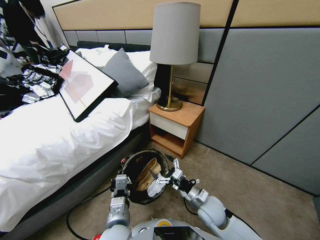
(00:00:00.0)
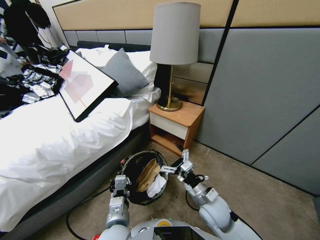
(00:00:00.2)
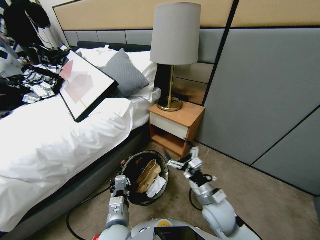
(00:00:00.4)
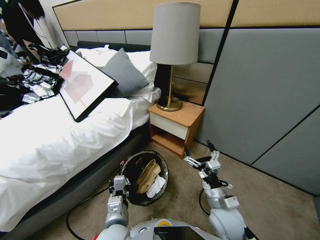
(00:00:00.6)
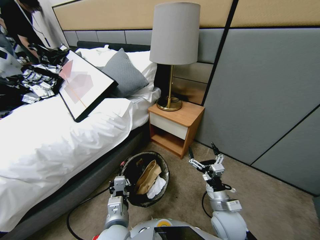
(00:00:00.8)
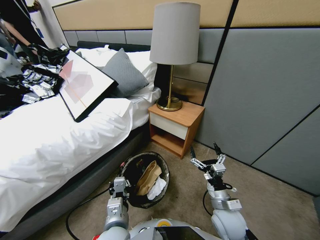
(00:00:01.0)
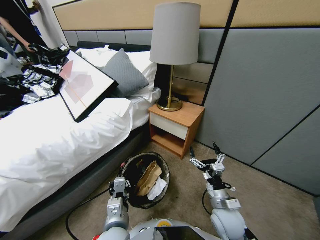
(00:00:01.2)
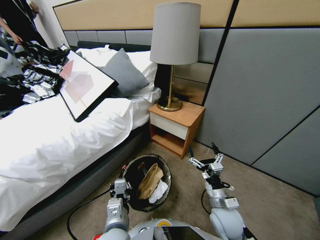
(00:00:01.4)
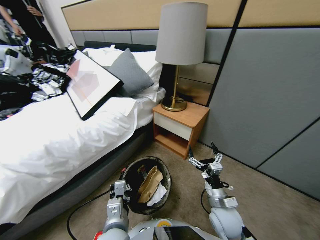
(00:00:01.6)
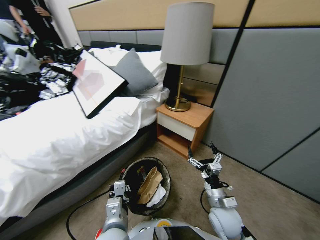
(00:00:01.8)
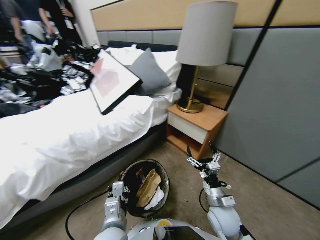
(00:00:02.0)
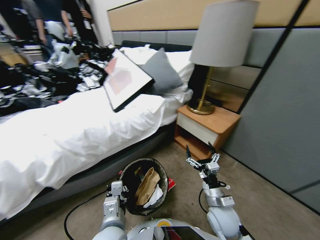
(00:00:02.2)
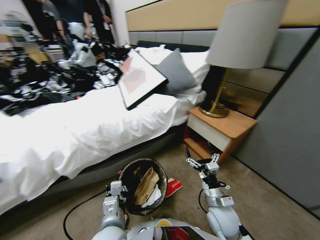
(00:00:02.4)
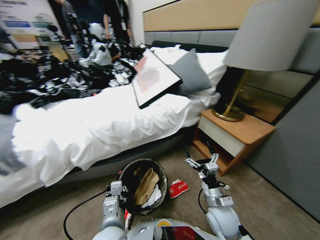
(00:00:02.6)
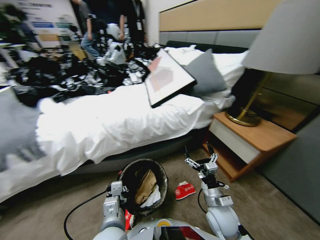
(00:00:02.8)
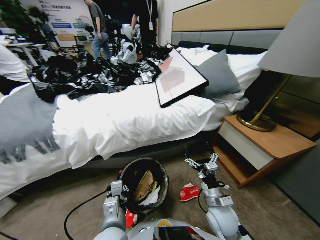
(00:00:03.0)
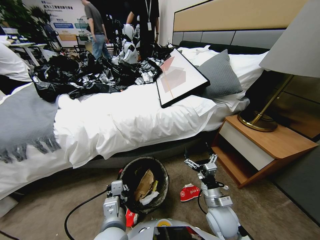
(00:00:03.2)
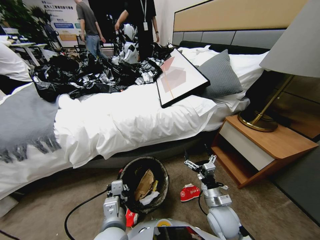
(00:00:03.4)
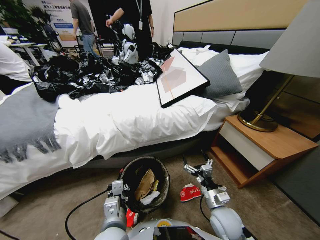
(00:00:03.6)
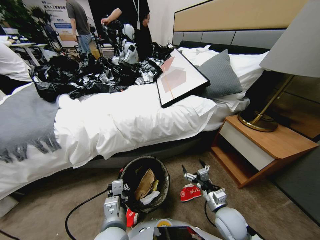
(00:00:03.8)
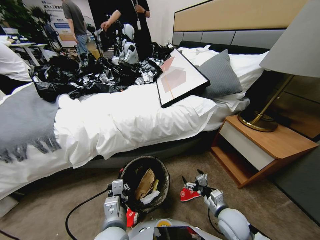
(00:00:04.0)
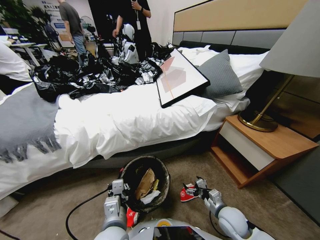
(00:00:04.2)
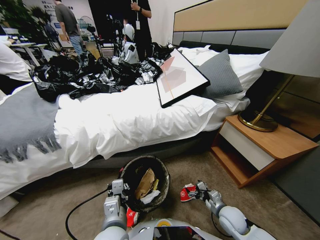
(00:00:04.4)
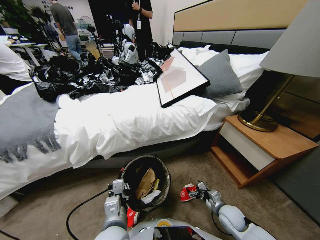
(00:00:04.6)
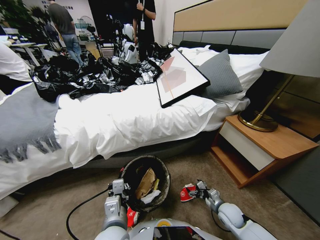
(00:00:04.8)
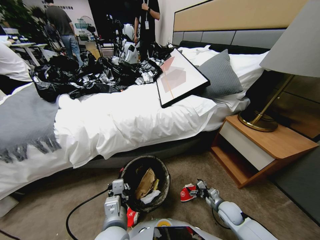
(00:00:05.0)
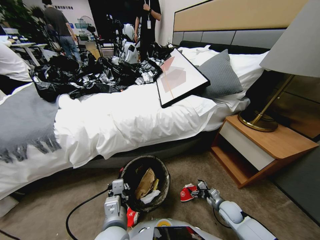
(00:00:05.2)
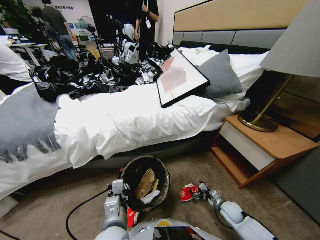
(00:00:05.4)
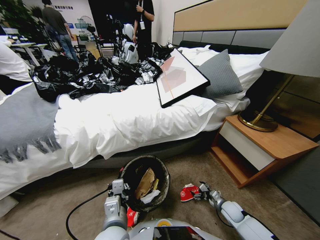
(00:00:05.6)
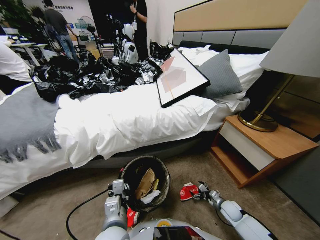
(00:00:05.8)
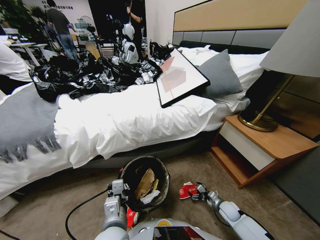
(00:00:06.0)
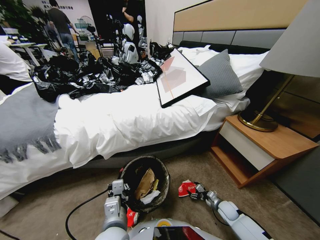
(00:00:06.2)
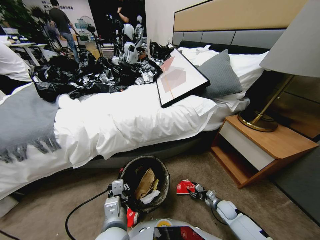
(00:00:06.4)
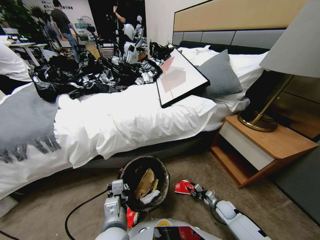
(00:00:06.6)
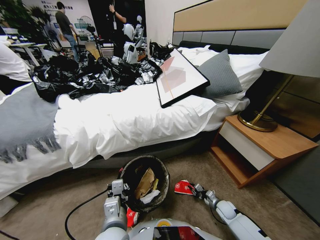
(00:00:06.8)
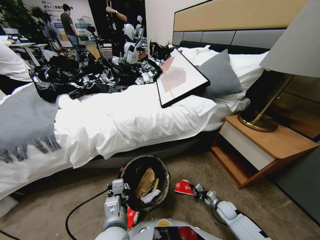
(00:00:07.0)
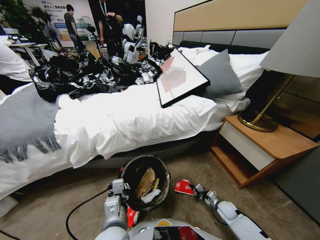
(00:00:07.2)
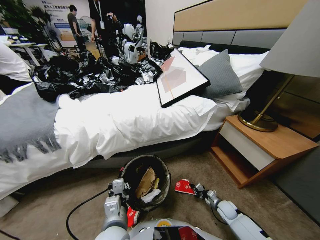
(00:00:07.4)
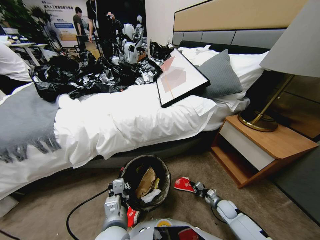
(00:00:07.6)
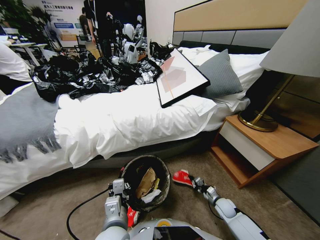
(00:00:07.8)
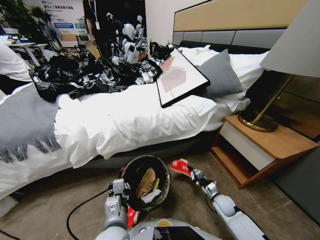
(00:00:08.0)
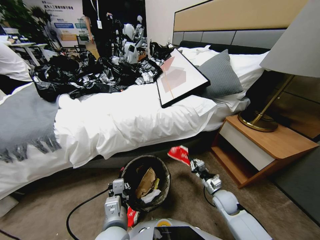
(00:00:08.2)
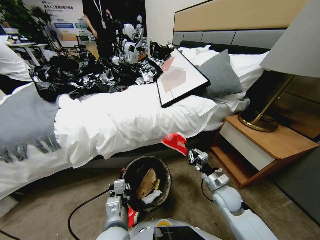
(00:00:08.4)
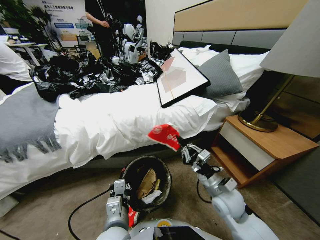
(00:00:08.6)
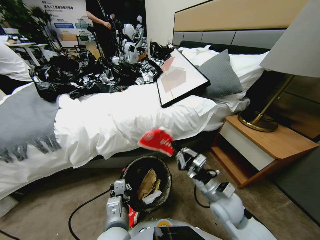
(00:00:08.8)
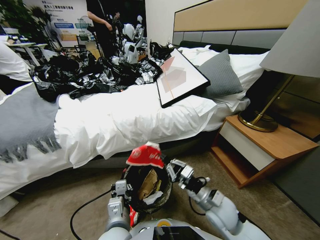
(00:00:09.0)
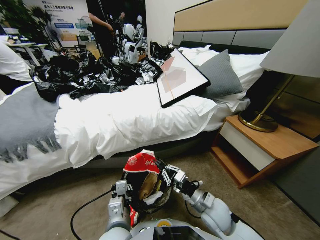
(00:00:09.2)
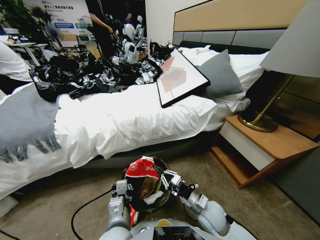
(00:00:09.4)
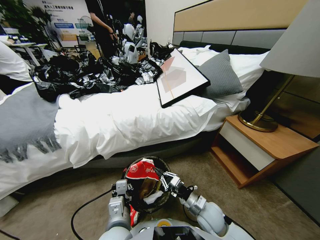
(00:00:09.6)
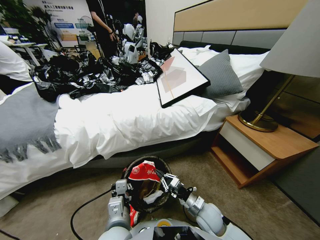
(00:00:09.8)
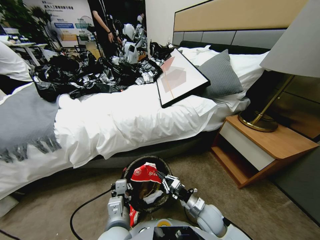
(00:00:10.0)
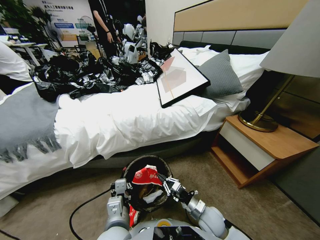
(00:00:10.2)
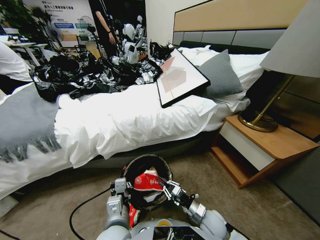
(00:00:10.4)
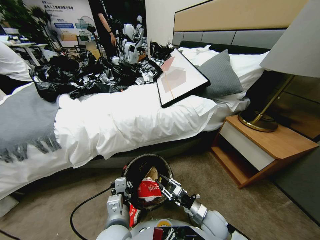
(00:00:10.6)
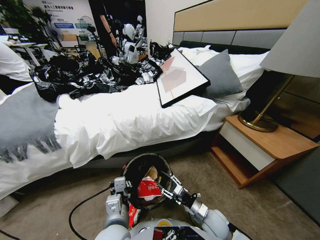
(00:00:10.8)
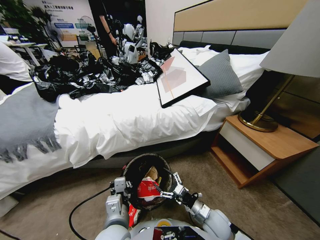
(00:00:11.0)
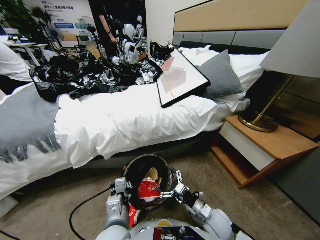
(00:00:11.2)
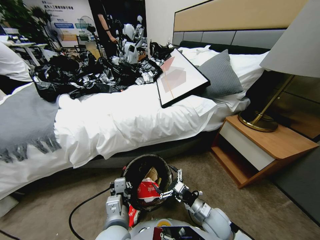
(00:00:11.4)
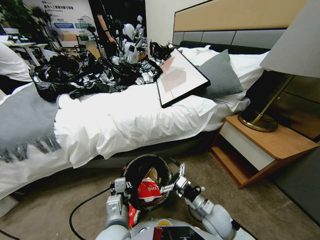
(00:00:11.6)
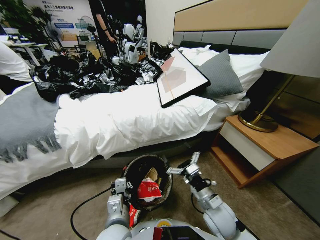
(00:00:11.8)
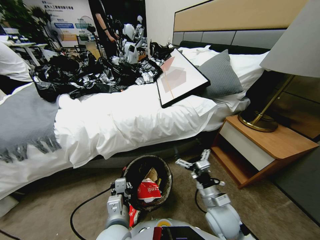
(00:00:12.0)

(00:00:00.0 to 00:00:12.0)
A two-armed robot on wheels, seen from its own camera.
Task of the whole recording: Pick up the trash bin, then pick up the garbage from the floor and place it into the trash bin.
00:00:03.0 - 00:00:04.4: The right gripper is displaced downward and to the right by about 15 cm.
00:00:04.4 - 00:00:06.0: The right gripper moves downward and to the right, approximately 10 cm.
00:00:06.0 - 00:00:07.6: The right gripper closes.
00:00:07.6 - 00:00:09.0: The right gripper travels upward and to the left by approximately 30 cm.
00:00:09.0 - 00:00:10.4: The right gripper travels downward by about 10 cm.
00:00:10.4 - 00:00:12.0: The right gripper moves upward, some 10 cm, and opens.

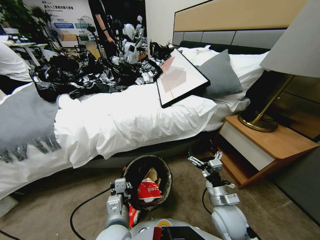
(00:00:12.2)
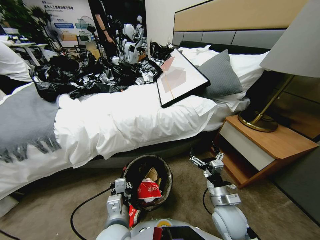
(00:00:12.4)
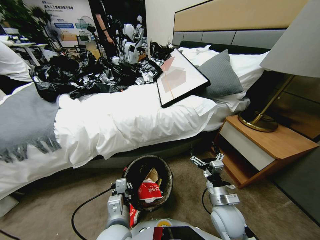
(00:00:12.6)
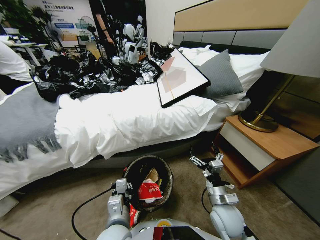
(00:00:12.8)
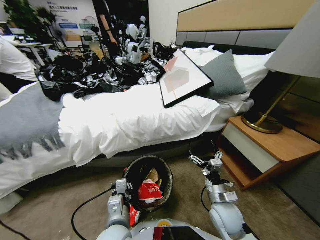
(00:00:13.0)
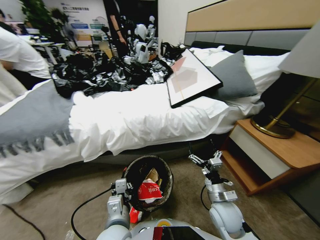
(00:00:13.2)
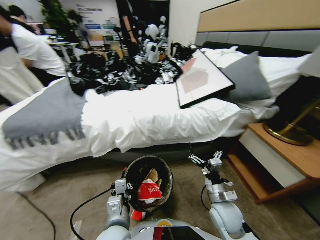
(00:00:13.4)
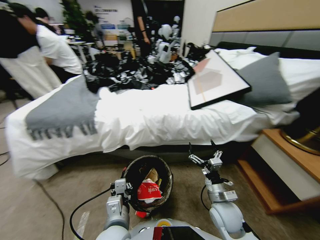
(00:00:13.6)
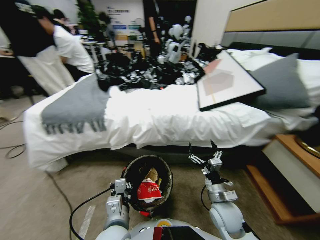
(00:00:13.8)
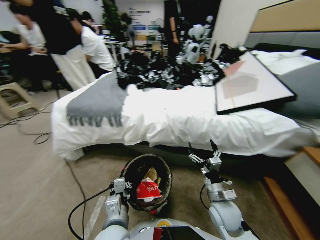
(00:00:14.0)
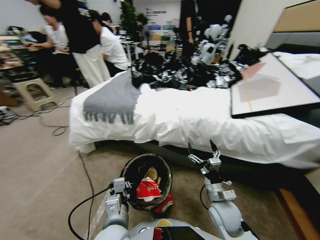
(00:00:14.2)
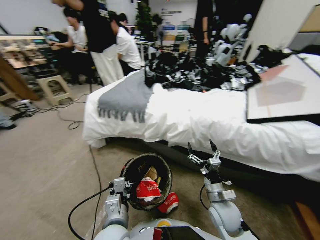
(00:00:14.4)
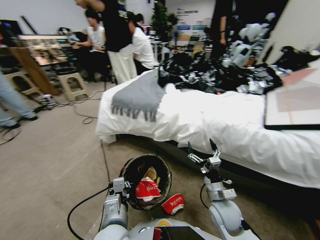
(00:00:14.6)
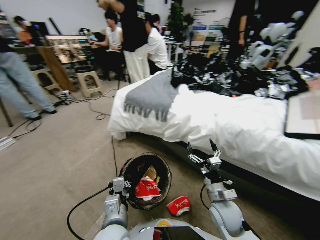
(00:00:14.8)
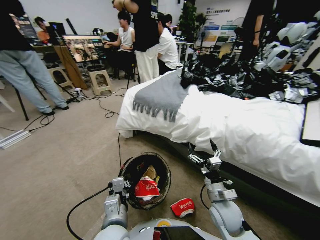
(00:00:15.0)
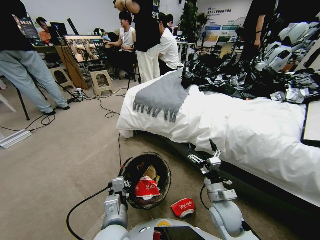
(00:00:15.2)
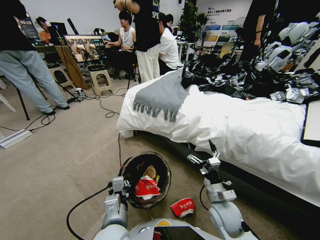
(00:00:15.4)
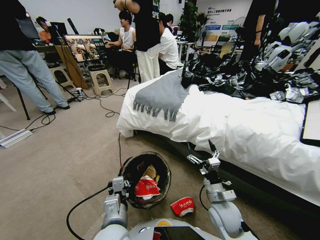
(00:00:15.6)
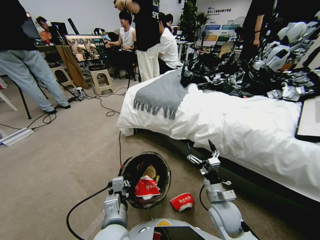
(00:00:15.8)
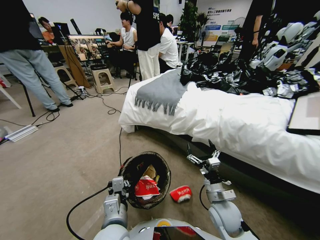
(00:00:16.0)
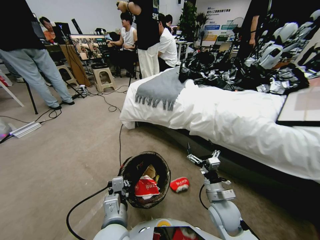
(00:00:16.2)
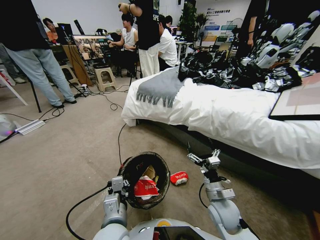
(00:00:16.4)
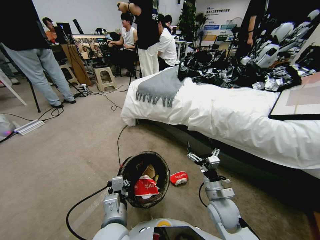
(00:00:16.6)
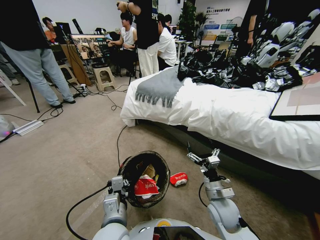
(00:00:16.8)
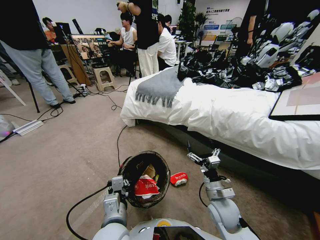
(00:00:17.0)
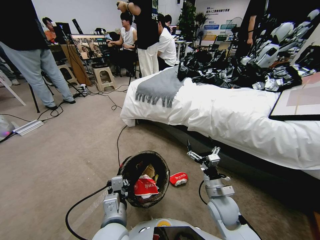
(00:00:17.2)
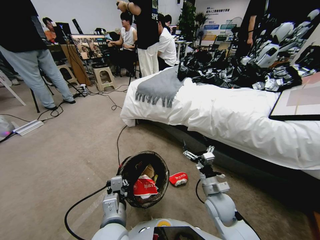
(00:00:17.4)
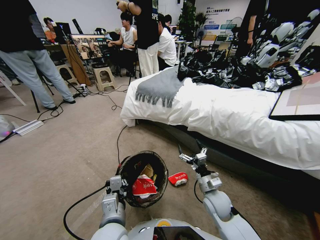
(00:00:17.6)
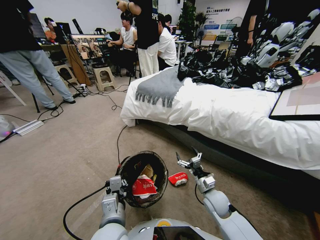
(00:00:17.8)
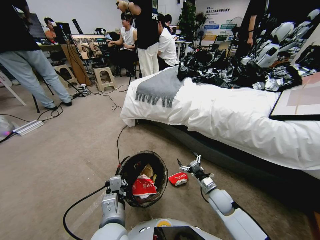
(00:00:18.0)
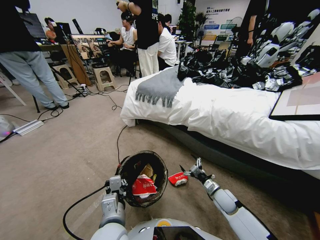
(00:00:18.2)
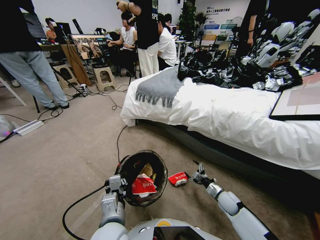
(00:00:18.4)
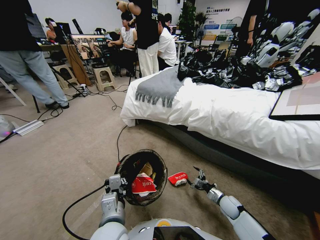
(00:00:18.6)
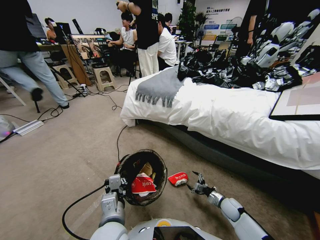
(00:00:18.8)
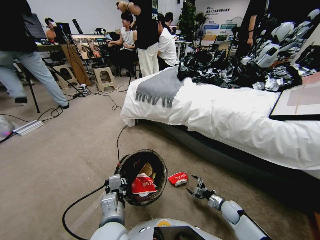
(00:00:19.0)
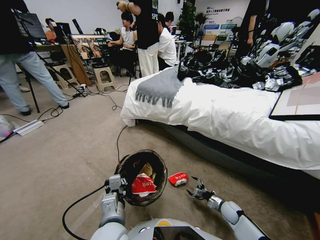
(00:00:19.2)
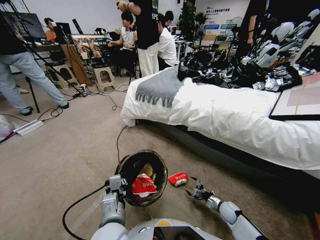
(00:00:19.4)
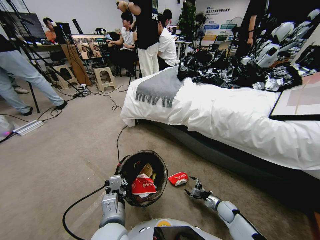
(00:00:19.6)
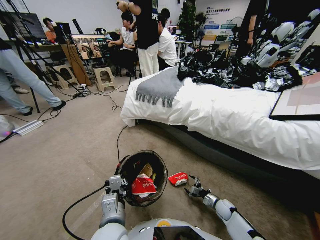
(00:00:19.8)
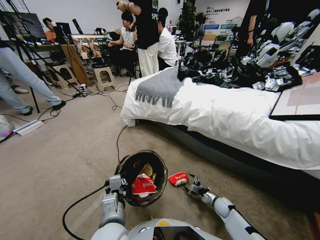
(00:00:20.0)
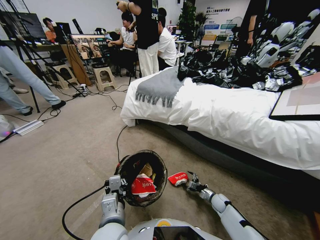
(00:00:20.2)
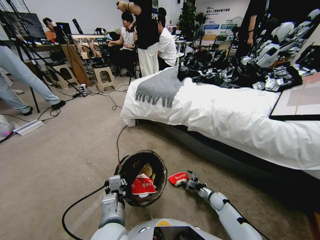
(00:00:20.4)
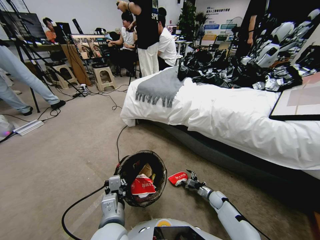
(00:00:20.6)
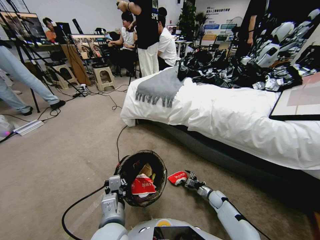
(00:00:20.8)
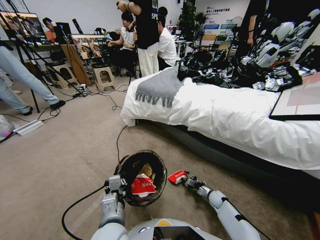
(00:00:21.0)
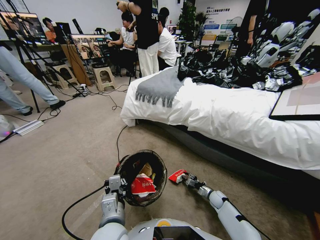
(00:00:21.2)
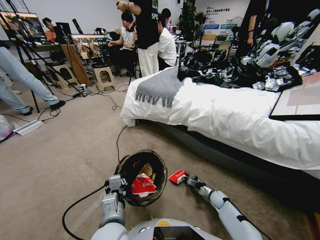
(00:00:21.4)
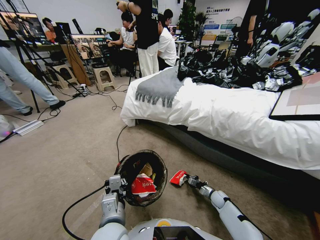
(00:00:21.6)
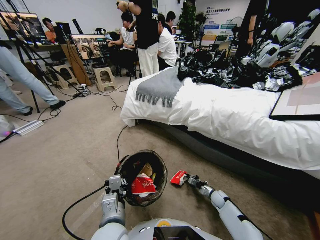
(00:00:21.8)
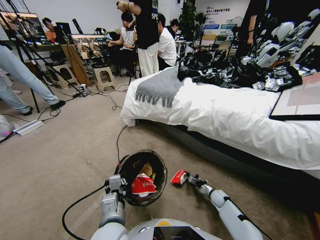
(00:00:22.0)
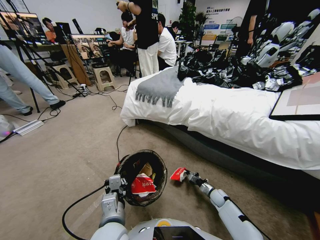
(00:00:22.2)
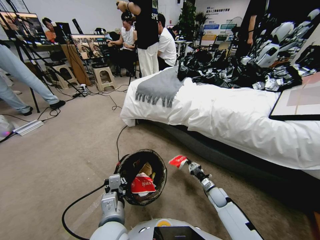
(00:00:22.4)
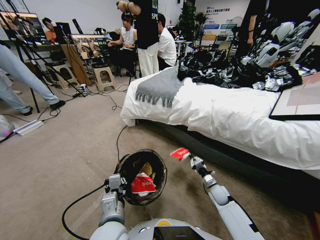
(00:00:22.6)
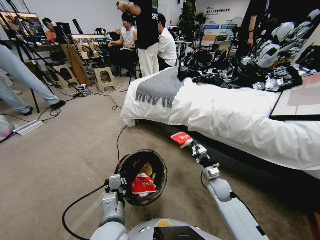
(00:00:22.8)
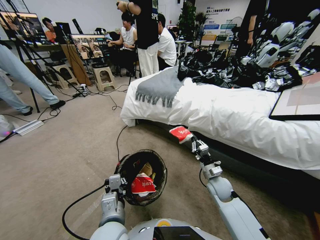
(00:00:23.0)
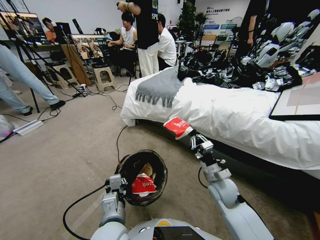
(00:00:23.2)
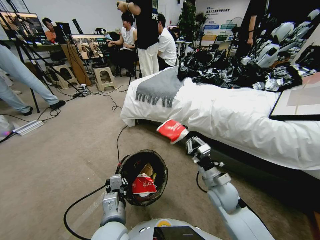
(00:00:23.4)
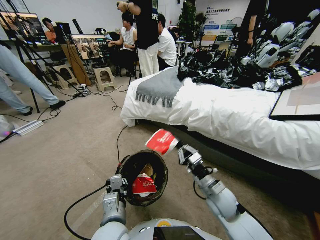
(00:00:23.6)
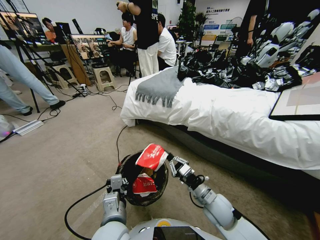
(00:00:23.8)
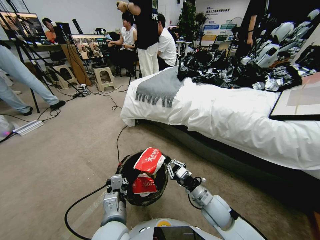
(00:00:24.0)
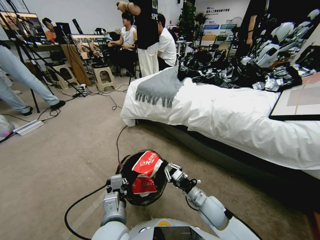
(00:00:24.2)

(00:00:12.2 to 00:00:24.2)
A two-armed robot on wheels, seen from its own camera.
Task of the whole recording: Pick up the trash bin, then pick up the garbage from the floor and place it into the trash bin.
00:00:16.6 - 00:00:18.2: The right gripper travels downward, to the right and forward by roughly 20 cm.
00:00:18.2 - 00:00:19.8: The right gripper shifts some 10 cm downward.
00:00:19.8 - 00:00:21.2: The right gripper closes up.
00:00:21.2 - 00:00:22.6: The right gripper heads upward and to the left, covering about 20 cm.
00:00:22.6 - 00:00:24.2: The right gripper heads to the left and backward, covering some 15 cm.
